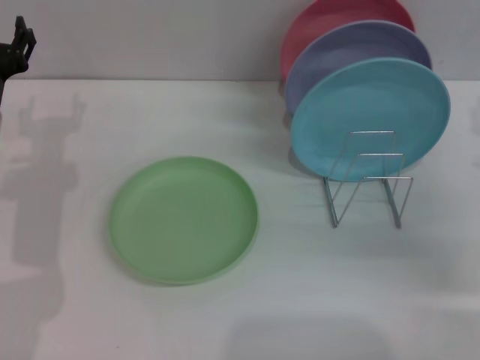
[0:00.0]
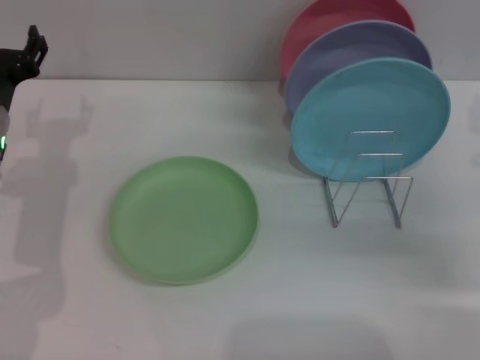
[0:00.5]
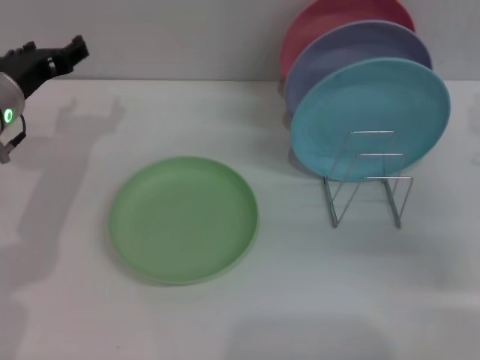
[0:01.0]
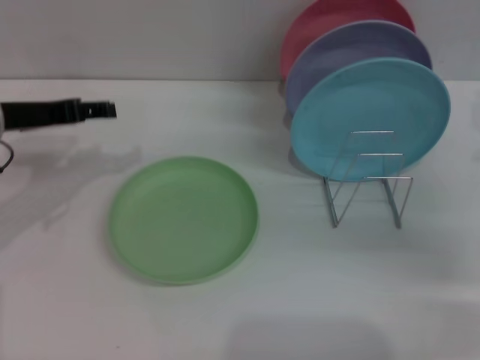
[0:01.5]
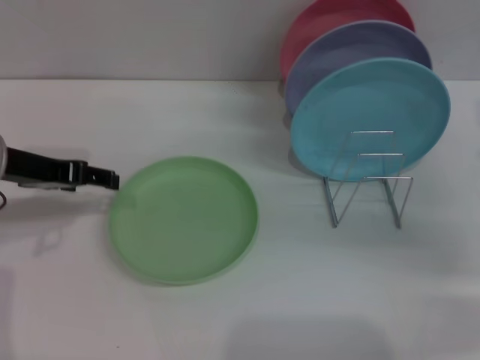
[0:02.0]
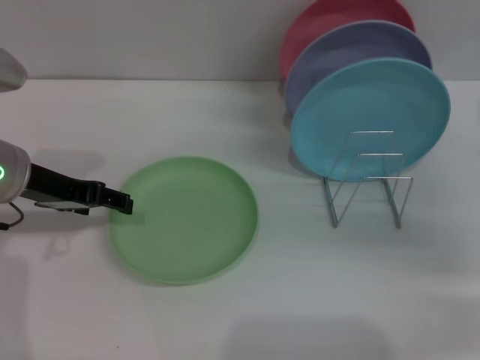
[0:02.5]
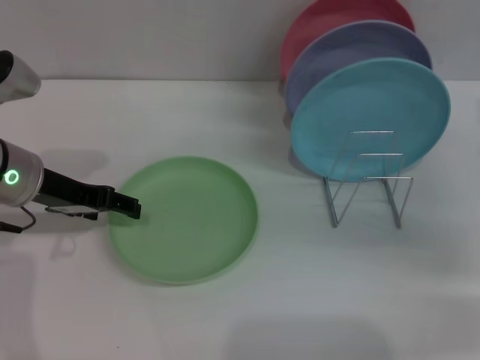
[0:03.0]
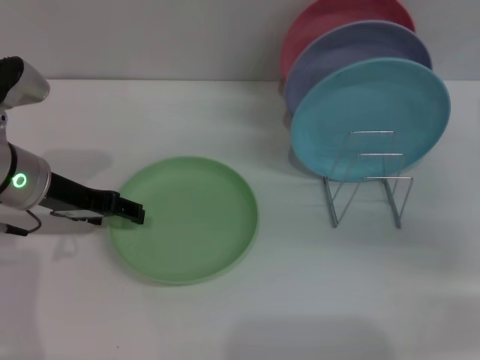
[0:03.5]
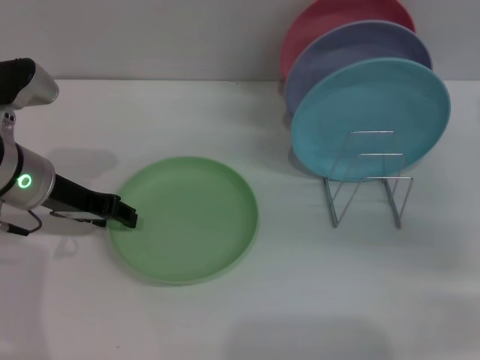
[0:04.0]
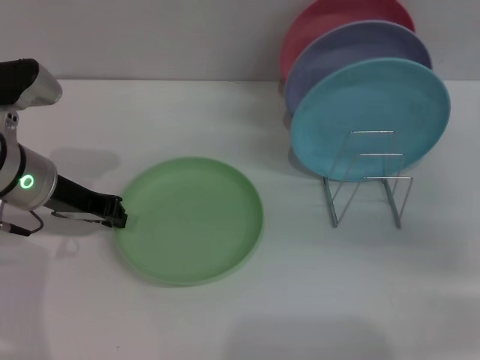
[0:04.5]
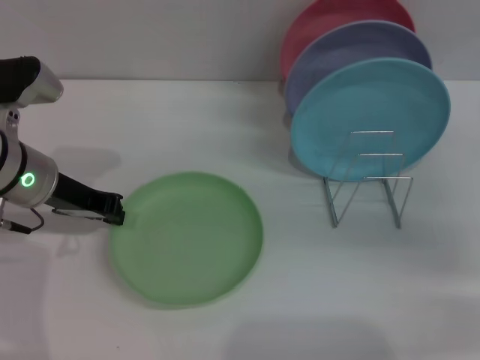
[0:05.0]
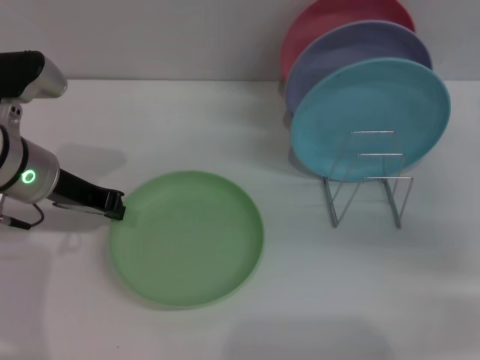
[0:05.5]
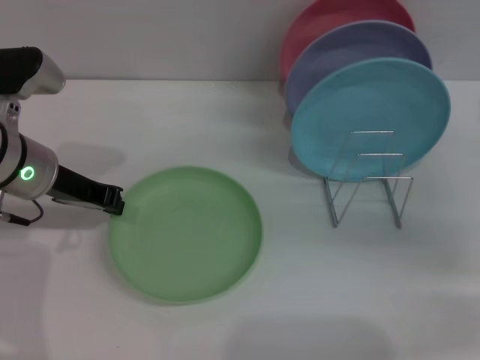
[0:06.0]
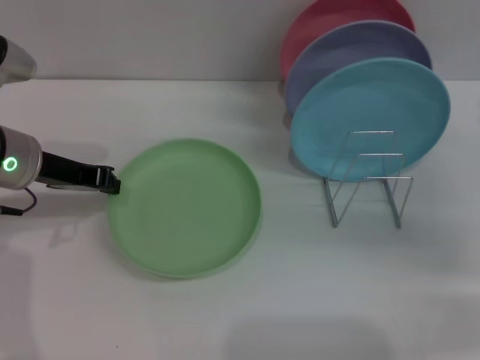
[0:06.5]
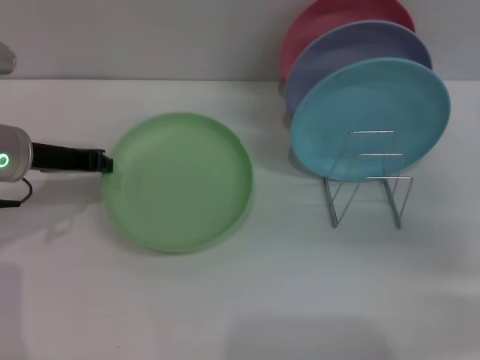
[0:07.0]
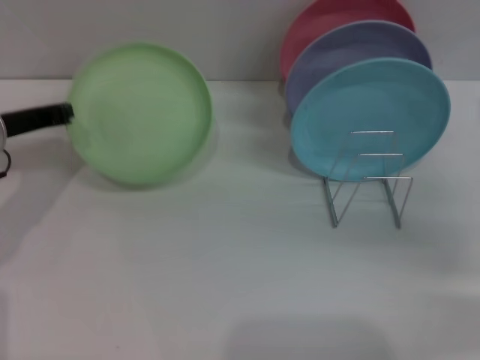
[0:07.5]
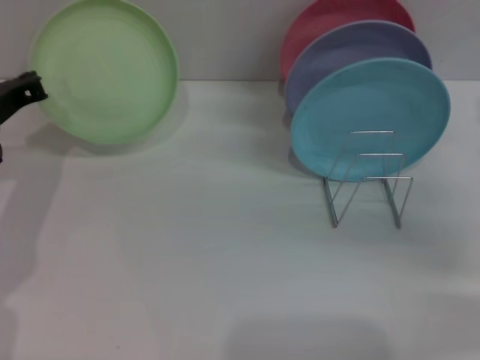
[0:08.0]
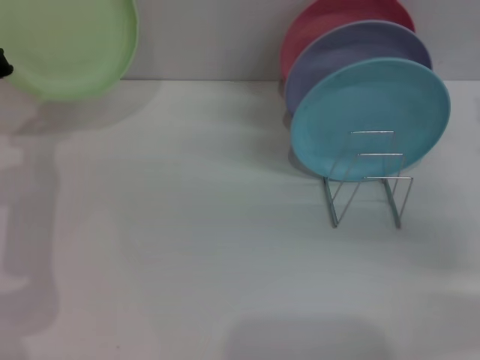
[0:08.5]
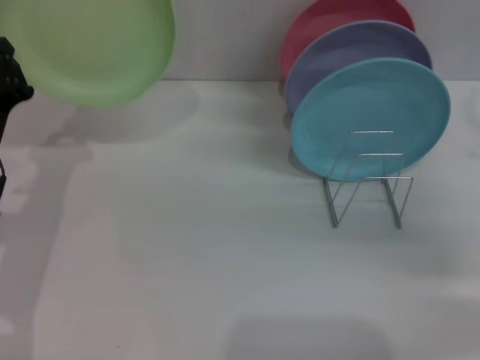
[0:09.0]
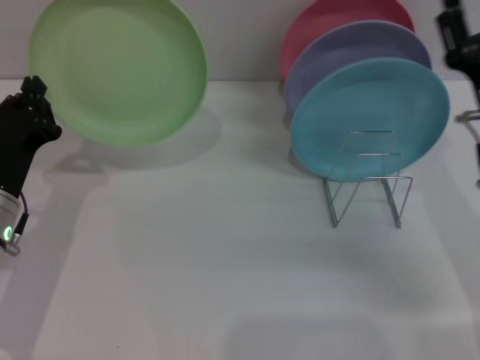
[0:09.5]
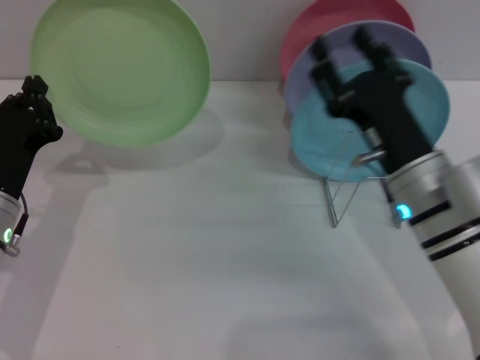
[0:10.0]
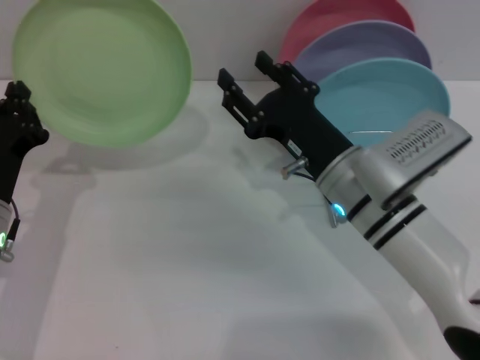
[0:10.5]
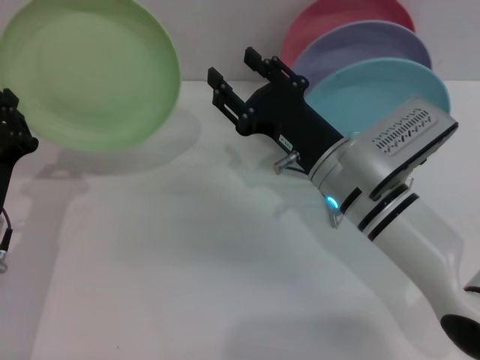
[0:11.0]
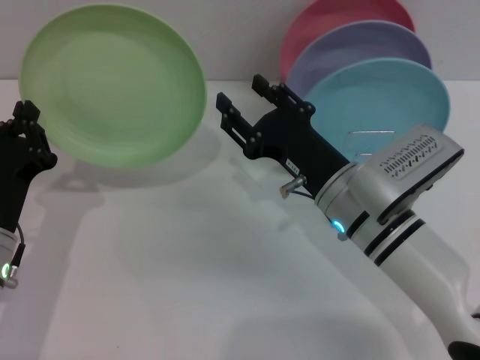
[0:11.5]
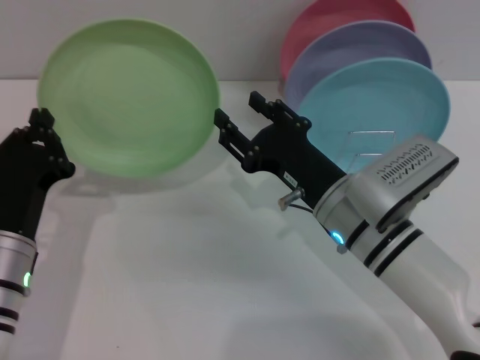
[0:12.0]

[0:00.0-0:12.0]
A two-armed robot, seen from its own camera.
Task of the whole recording: Grip the plate with one hand, pass it to the other, then set it on the shelf.
Step, 0:00.0 to 0:06.5: Pick up the plate with the left gripper.
0:00.0 to 0:02.0: The left gripper moves upward, approximately 5 cm.
0:02.0 to 0:04.0: The left gripper changes place by about 5 cm.
0:04.0 to 0:06.0: The left gripper closes up.
0:06.0 to 0:08.0: The left gripper goes approximately 5 cm to the left.
0:08.0 to 0:10.0: The right gripper shifts approximately 15 cm to the left. The left gripper is displaced backward and downward by approximately 10 cm.
0:10.0 to 0:12.0: The right gripper ends up some 5 cm from where it was.

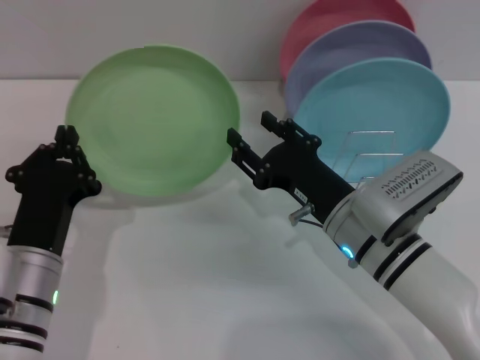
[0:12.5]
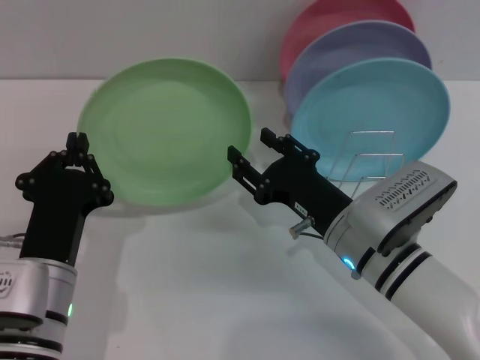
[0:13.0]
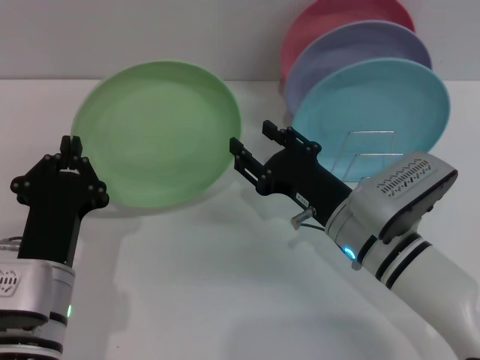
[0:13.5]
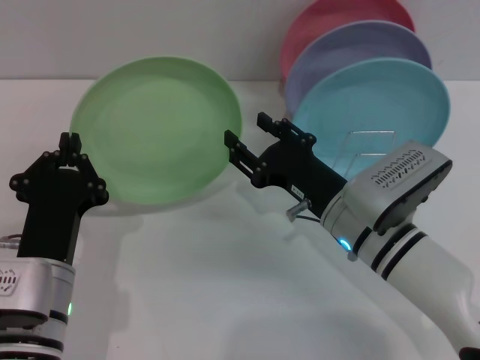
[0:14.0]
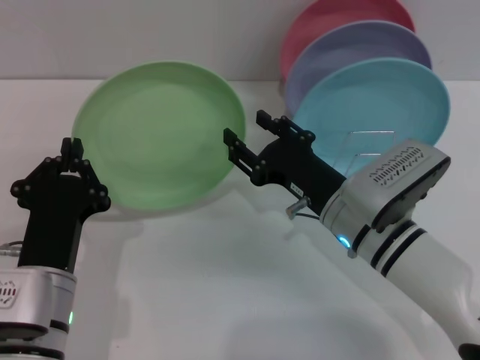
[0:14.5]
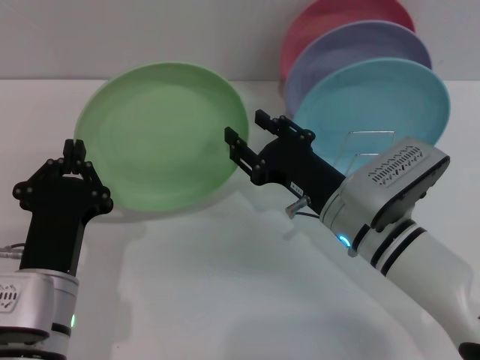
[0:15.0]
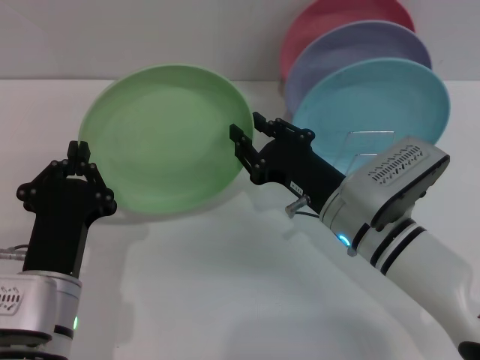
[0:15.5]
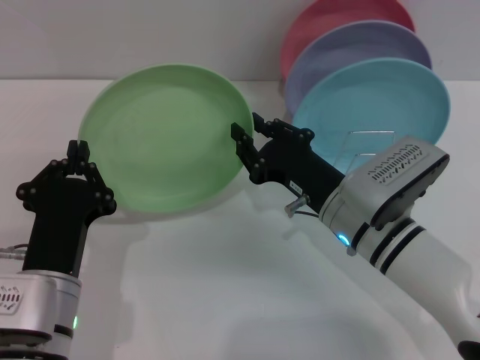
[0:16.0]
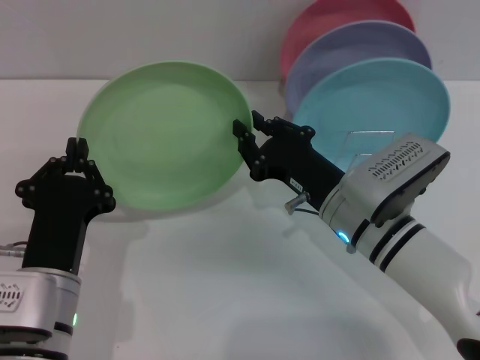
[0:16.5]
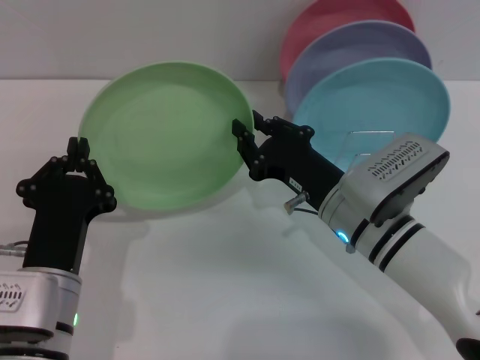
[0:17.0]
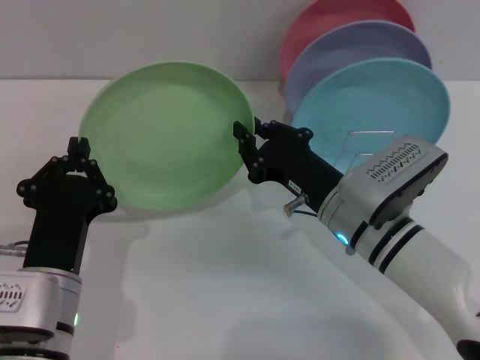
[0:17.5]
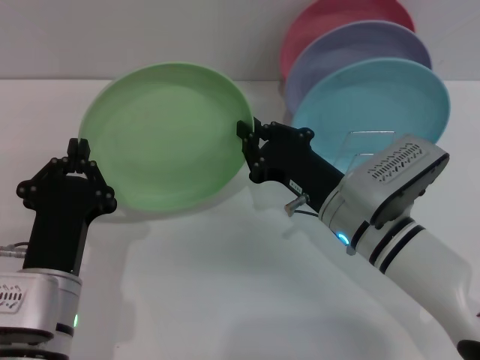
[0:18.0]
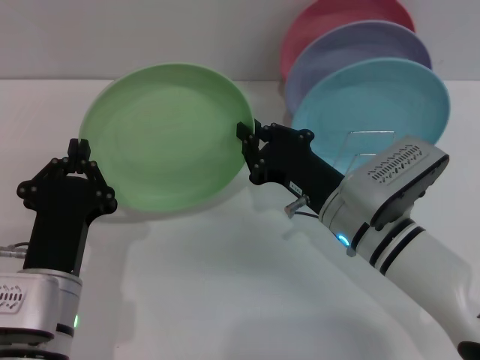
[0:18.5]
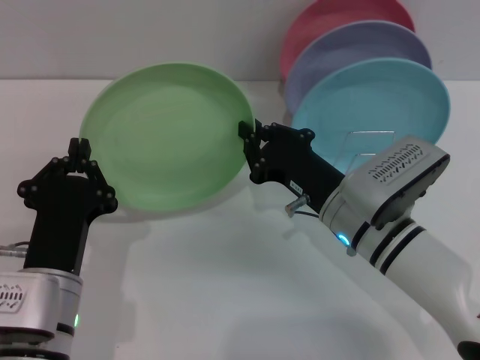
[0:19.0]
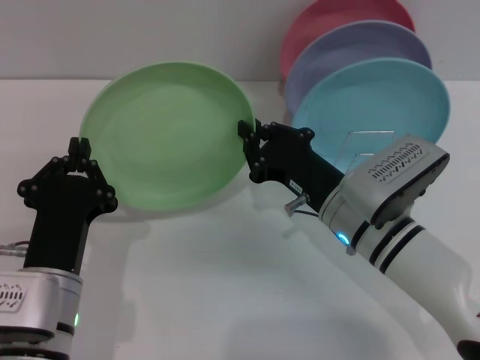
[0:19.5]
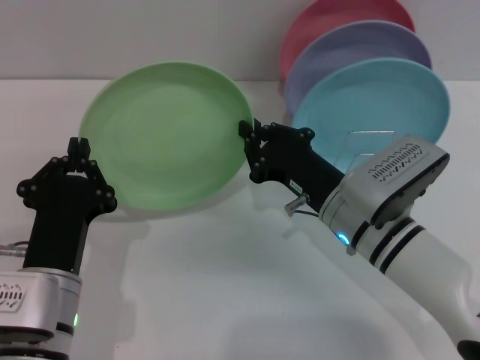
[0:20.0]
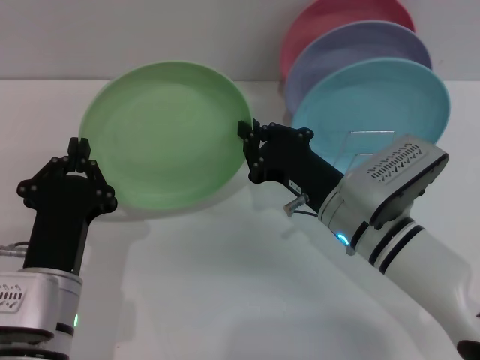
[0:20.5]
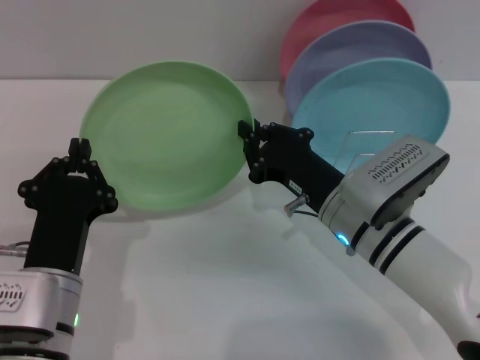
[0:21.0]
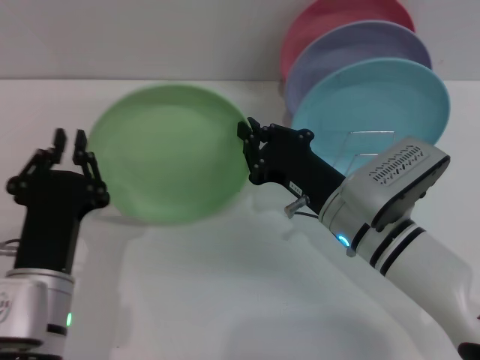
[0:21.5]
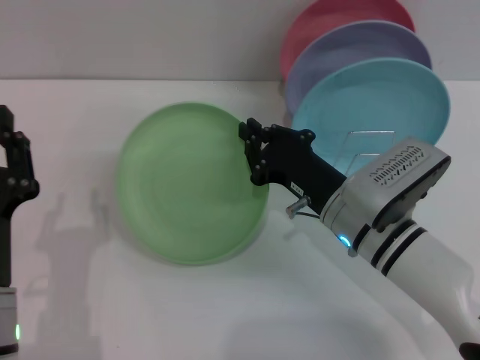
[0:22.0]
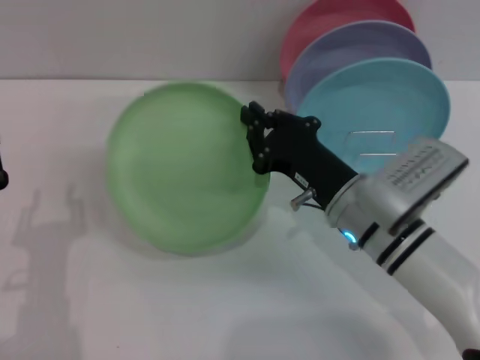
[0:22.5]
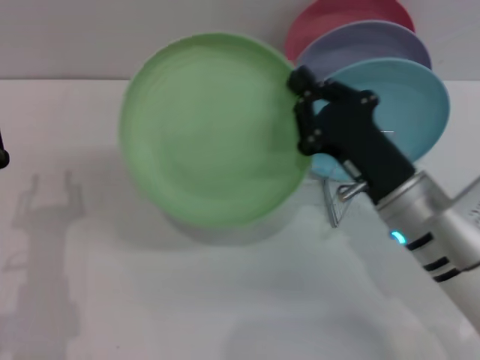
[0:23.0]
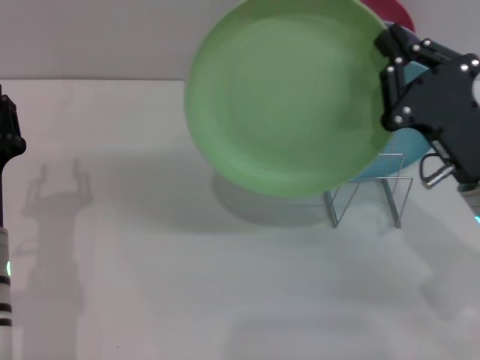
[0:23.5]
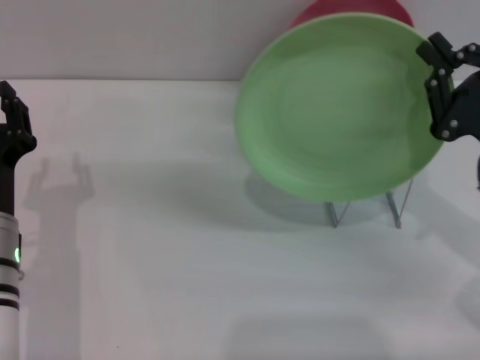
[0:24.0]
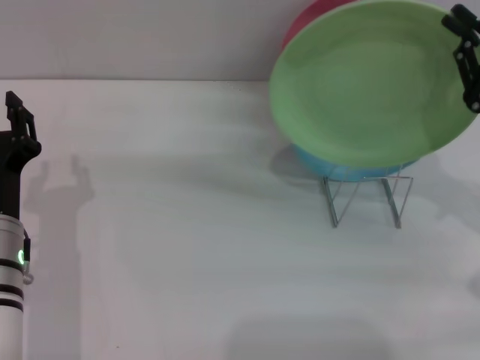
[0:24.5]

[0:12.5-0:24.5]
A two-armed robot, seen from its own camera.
Task of the whole recording: Grip the plate with one hand, pass it to the other, then set it on the shelf.
Step, 0:12.5 to 0:23.0: Pass the plate from the left gripper to the right gripper.
0:12.5 to 0:14.5: There are only small adjustments of the grippers.
0:14.5 to 0:16.5: The right gripper closes up.
0:16.5 to 0:20.5: Neither gripper changes place.
0:20.5 to 0:22.5: The left gripper ends up approximately 5 cm from where it was, and opens its fingers.
0:22.5 to 0:24.5: The right gripper is displaced to the right and upward by some 20 cm. The left gripper shifts roughly 5 cm forward.

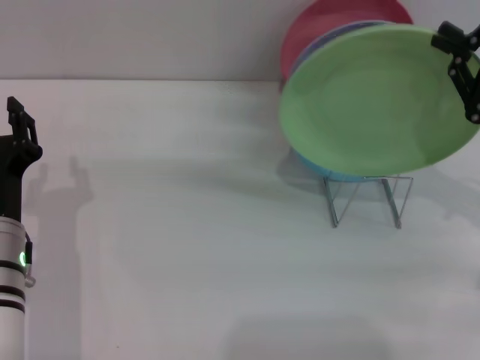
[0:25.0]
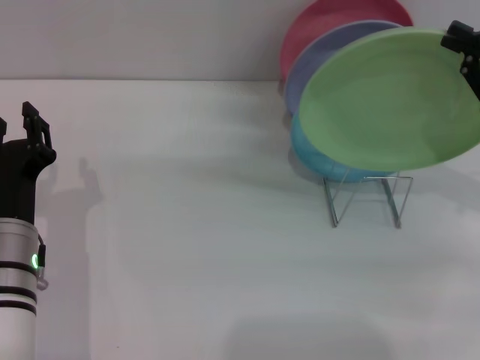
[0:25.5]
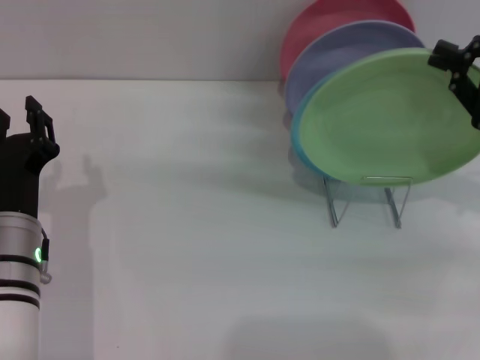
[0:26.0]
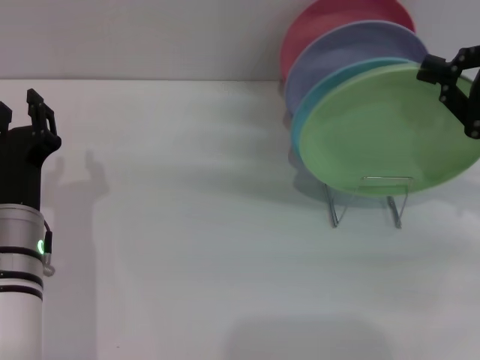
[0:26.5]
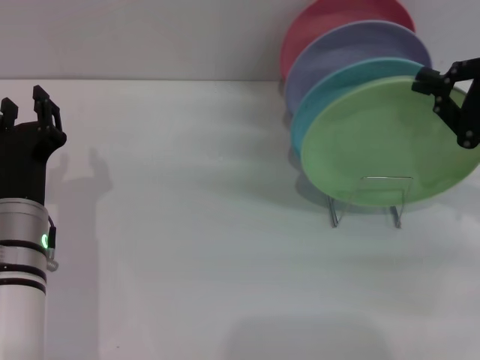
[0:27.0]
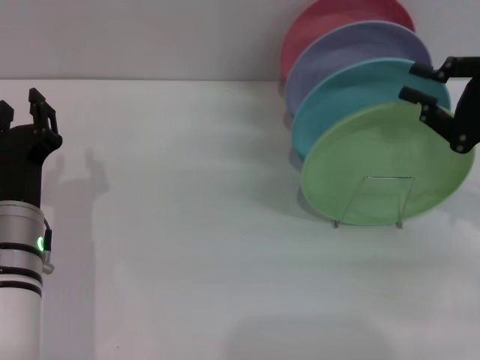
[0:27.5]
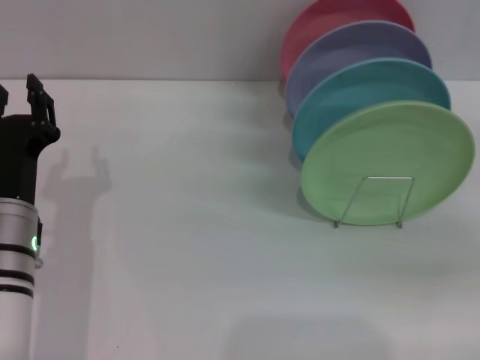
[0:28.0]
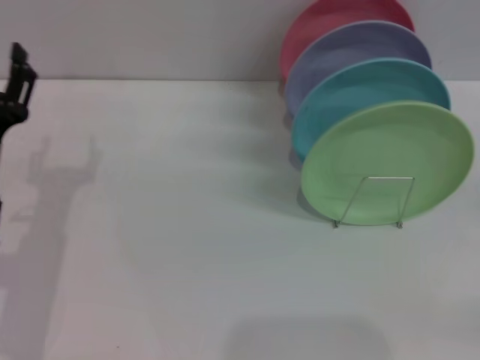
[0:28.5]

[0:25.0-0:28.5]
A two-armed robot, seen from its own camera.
Task of the whole recording: Grip the plate with one hand, pass it to the other, then set it on the shelf.
Step, 0:25.0 to 0:27.5: Place the plate on the shelf with the right gripper.
0:25.0 to 0:27.0: The grippers move only a little.
0:27.0 to 0:28.5: The left gripper heads to the left, covering approximately 5 cm. Meanwhile the right gripper moves backward, to the right and downward, roughly 15 cm, and opens up.
